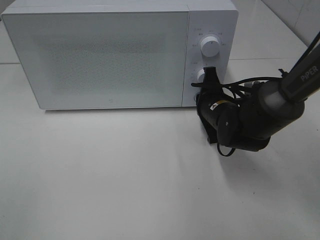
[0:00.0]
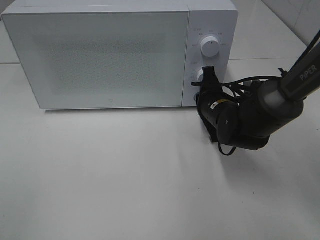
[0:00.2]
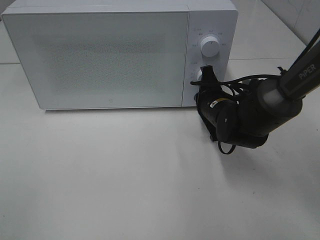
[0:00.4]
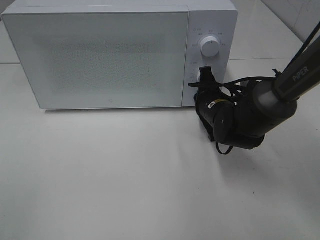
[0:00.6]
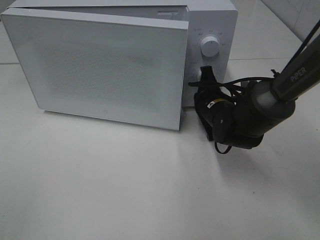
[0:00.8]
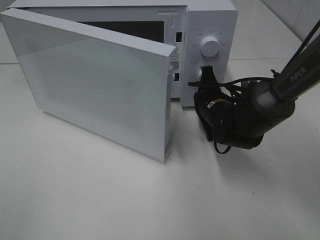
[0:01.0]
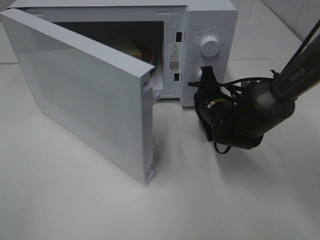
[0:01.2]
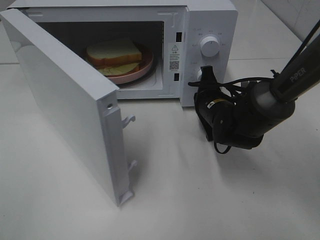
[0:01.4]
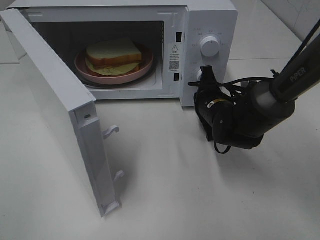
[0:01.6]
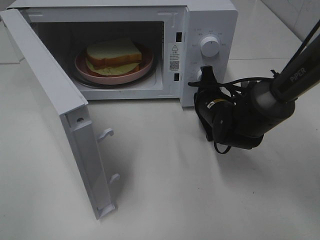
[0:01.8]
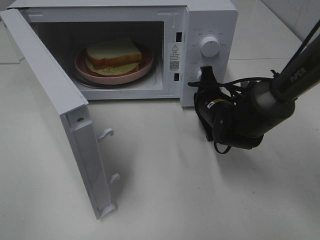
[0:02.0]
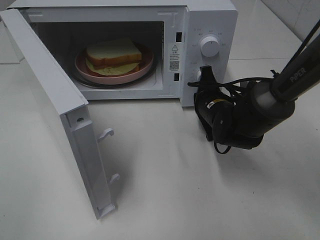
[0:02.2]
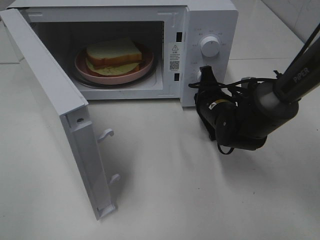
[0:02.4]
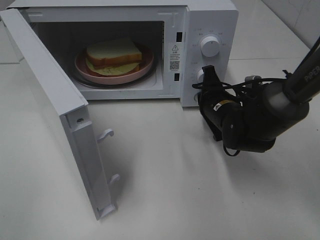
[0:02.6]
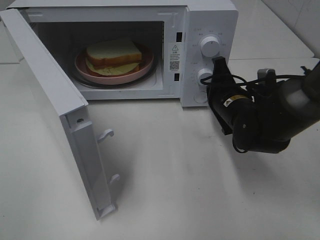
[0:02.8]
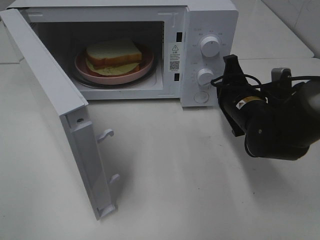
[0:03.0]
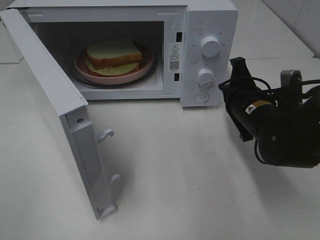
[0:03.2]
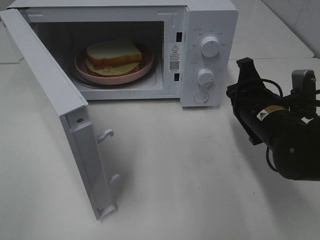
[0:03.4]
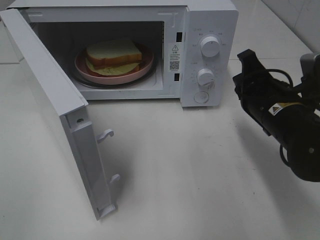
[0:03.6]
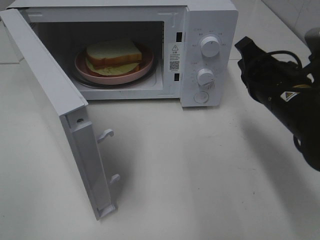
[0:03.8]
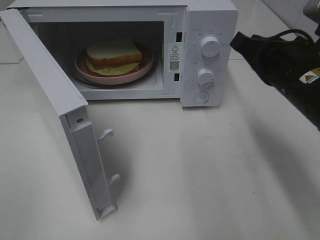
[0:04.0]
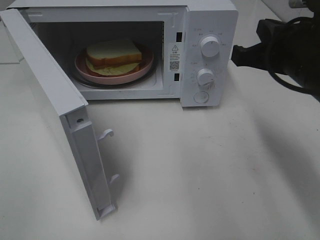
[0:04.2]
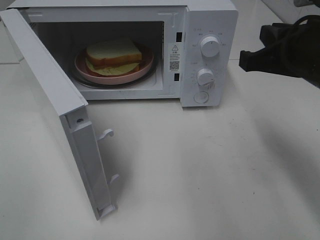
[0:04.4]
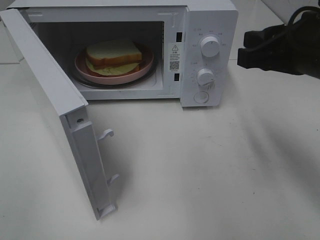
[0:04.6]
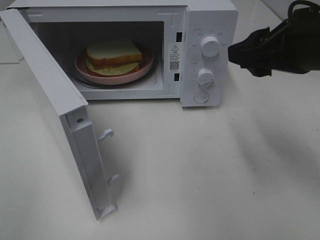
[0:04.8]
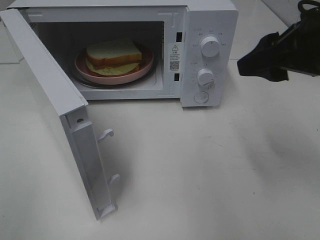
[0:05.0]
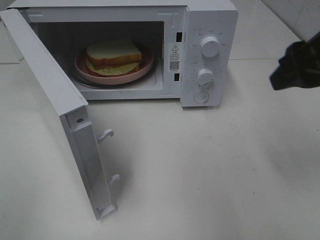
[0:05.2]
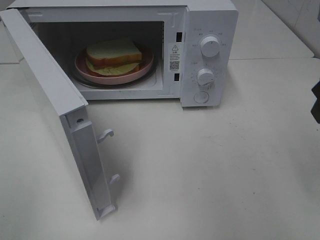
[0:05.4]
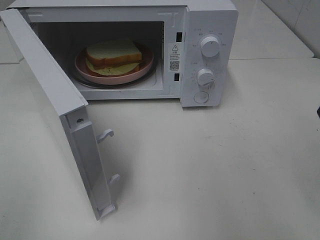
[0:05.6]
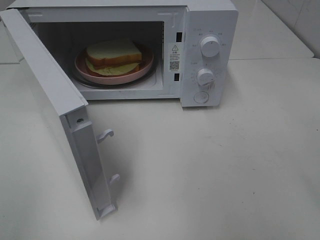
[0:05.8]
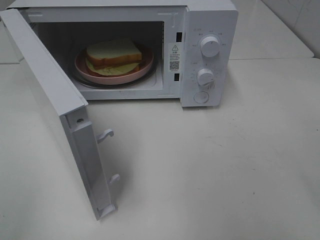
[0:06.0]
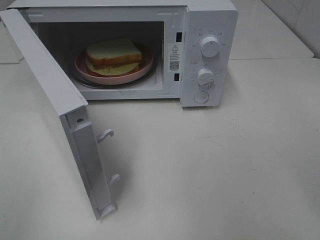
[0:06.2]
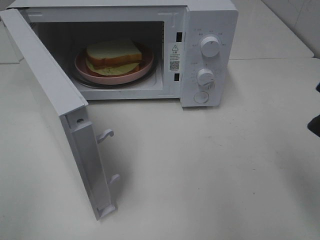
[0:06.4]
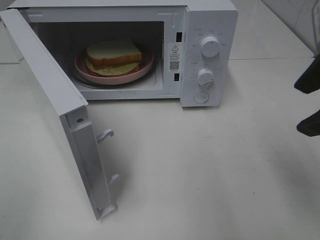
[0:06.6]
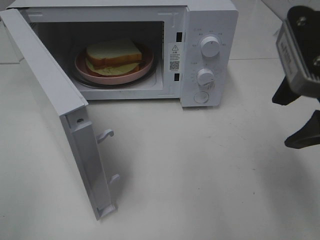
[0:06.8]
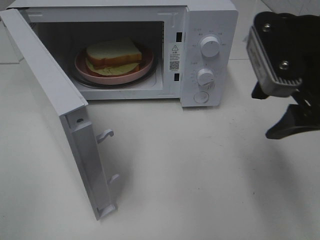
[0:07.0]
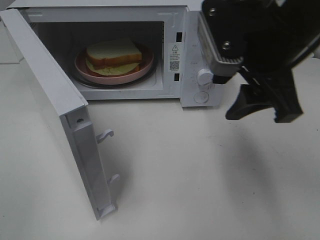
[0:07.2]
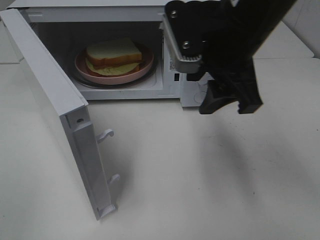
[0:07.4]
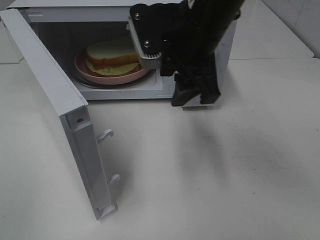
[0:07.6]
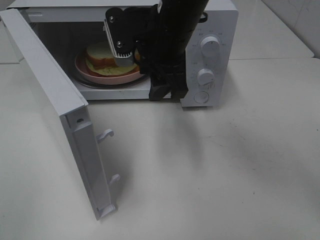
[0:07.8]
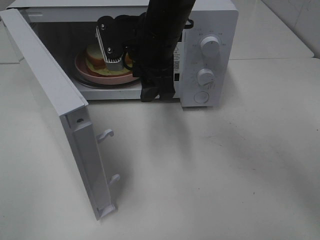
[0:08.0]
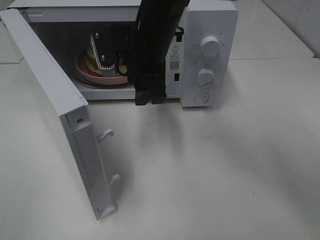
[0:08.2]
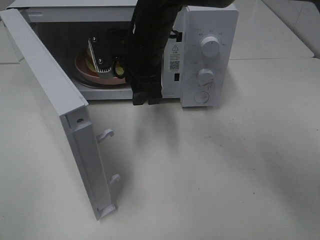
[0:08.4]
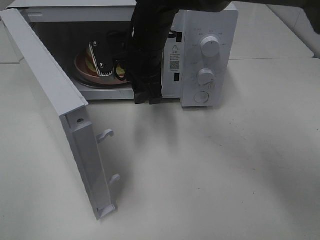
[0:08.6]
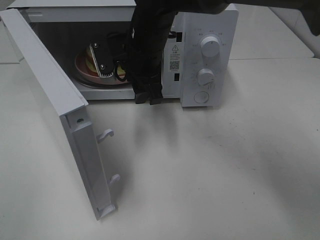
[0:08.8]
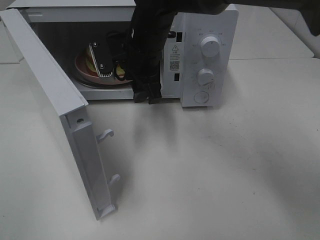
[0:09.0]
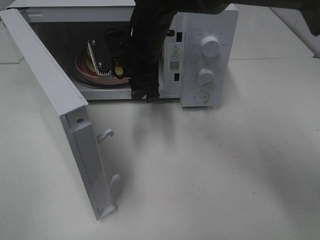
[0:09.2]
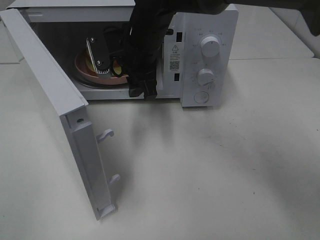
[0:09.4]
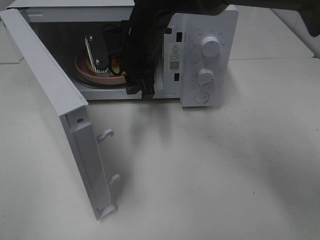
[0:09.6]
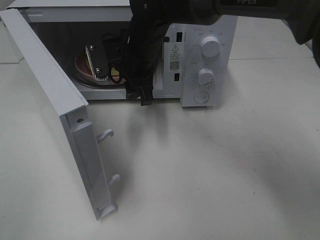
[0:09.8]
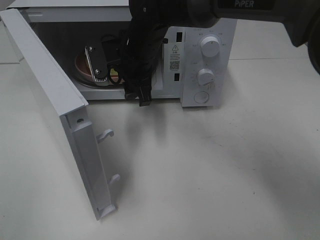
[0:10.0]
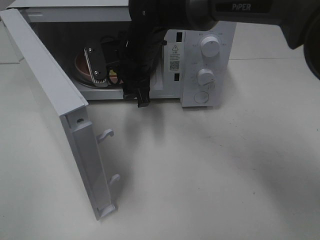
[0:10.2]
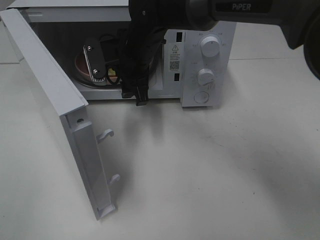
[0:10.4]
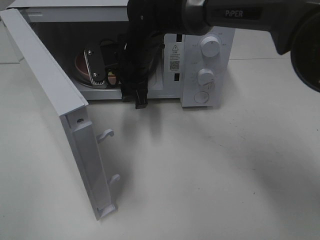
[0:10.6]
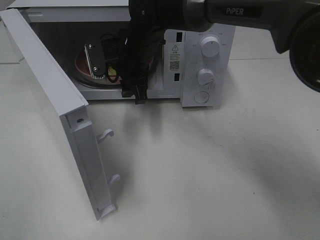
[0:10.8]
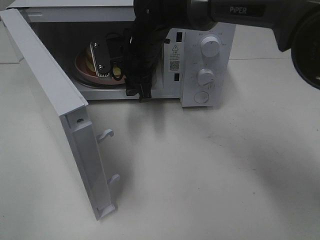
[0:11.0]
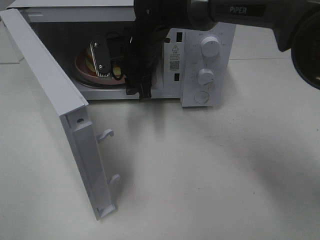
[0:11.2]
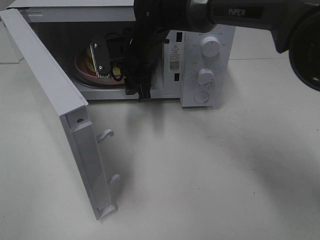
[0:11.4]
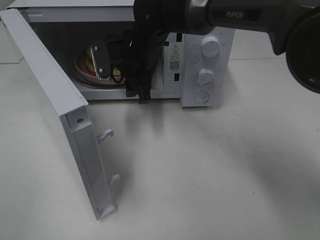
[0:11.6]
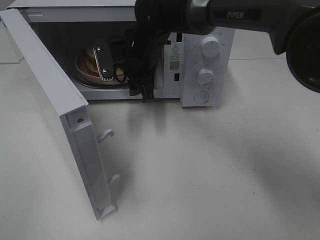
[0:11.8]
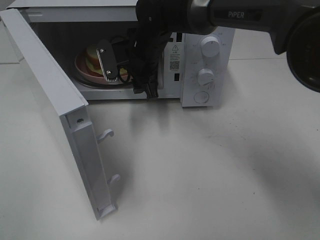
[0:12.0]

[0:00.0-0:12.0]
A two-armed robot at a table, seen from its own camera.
Task of the whole recording: Heat Sandwich.
Step, 0:00.0 to 0:02.6: Right hand: press the switch.
0:01.6 to 0:03.0: The right gripper ends up about 5 cm from where it was.
0:03.0 to 0:04.4: The right gripper travels upward and backward by about 15 cm.
0:04.4 to 0:06.0: The right gripper is displaced upward and backward by roughly 10 cm, and opens its fingers.
0:06.0 to 0:07.6: The right gripper travels to the left and forward by approximately 25 cm.
0:07.6 to 0:09.0: The right gripper shifts some 10 cm forward, downward and to the left.
0:09.0 to 0:12.0: The grippers make only small movements.

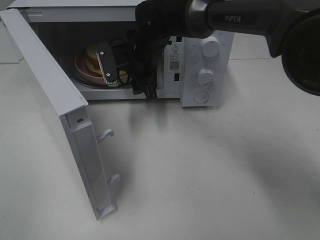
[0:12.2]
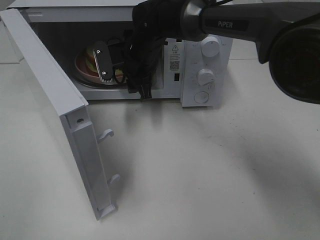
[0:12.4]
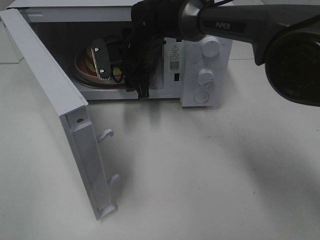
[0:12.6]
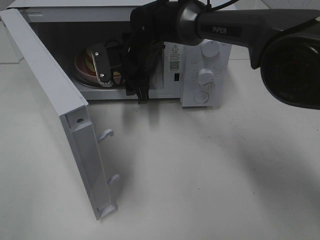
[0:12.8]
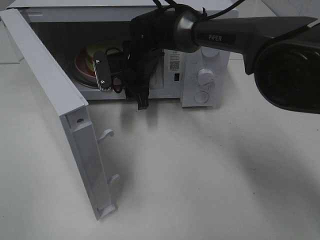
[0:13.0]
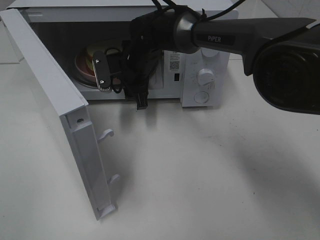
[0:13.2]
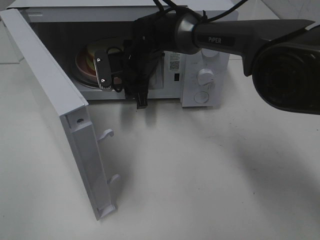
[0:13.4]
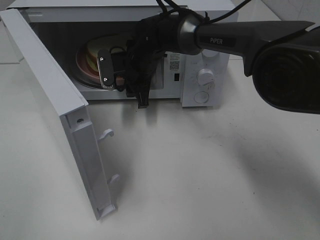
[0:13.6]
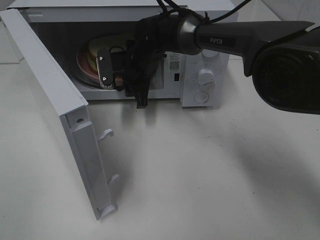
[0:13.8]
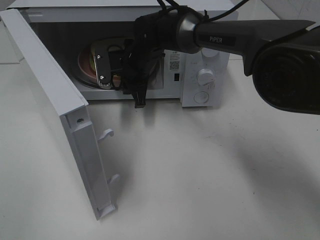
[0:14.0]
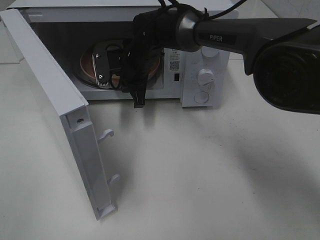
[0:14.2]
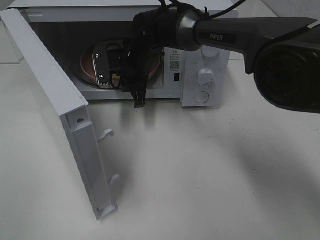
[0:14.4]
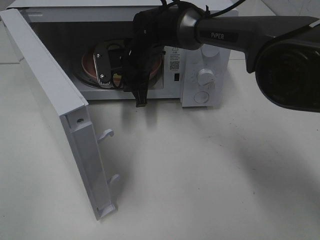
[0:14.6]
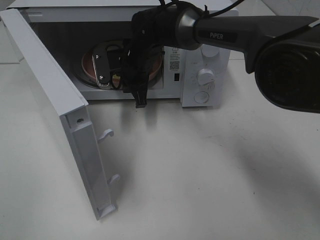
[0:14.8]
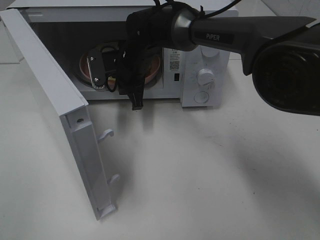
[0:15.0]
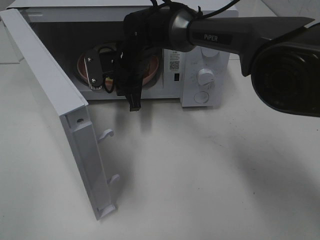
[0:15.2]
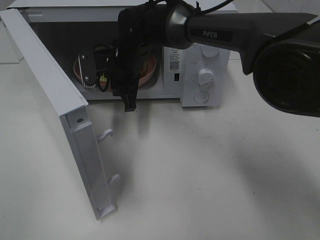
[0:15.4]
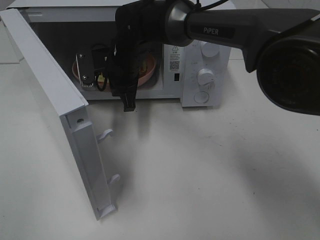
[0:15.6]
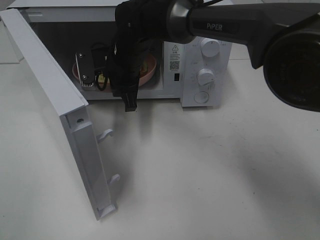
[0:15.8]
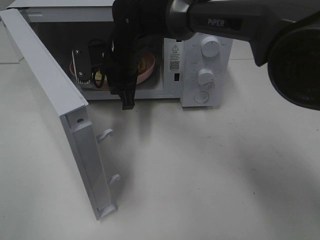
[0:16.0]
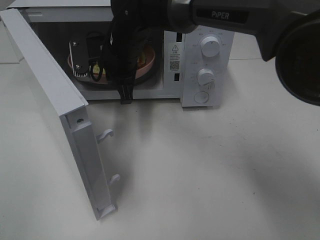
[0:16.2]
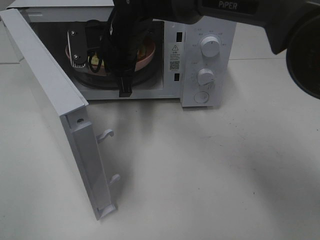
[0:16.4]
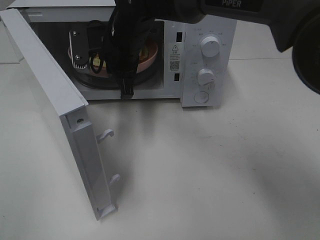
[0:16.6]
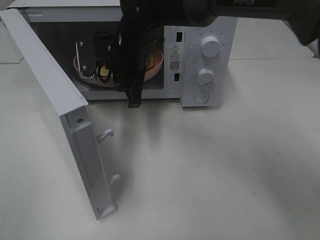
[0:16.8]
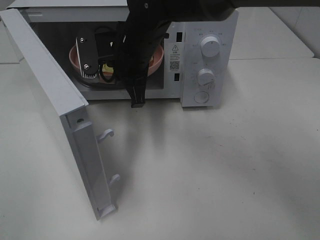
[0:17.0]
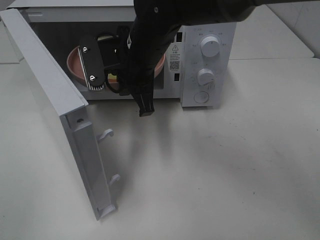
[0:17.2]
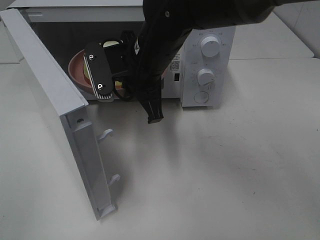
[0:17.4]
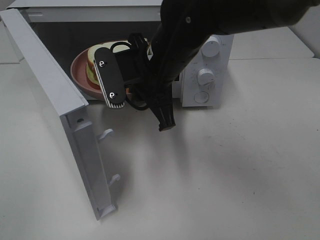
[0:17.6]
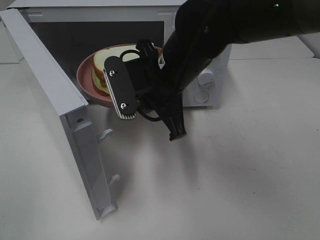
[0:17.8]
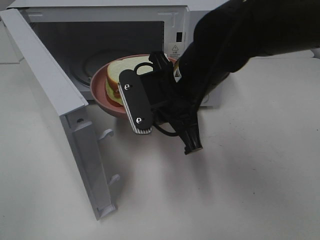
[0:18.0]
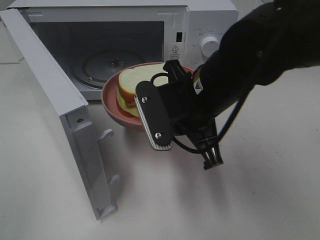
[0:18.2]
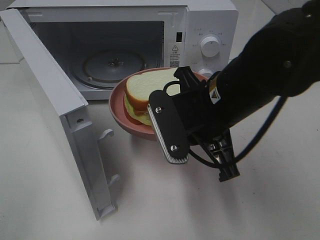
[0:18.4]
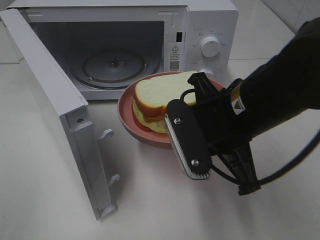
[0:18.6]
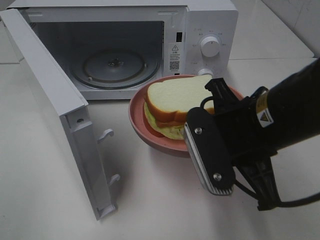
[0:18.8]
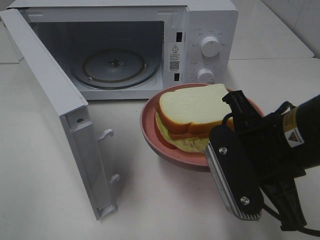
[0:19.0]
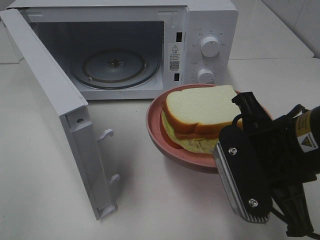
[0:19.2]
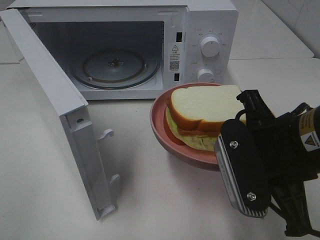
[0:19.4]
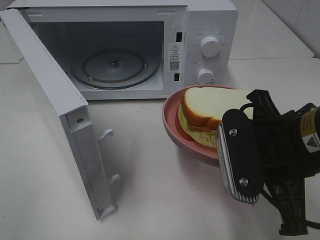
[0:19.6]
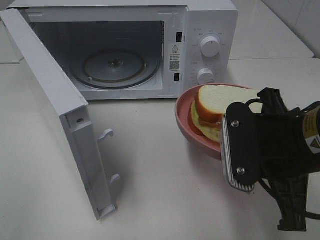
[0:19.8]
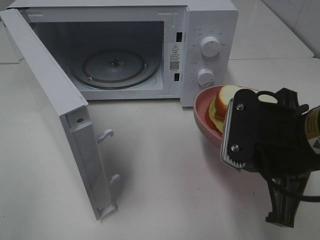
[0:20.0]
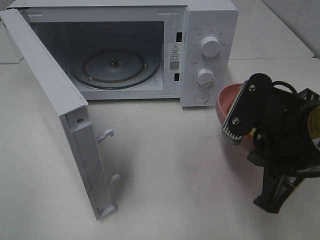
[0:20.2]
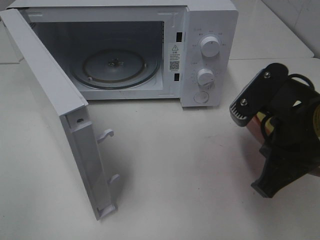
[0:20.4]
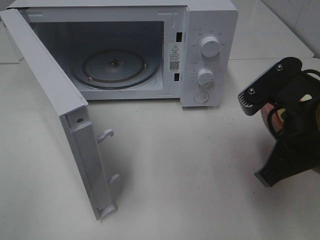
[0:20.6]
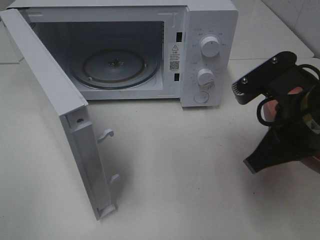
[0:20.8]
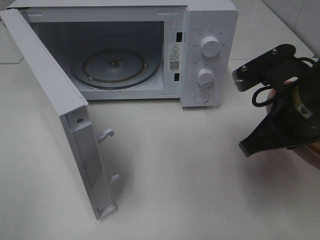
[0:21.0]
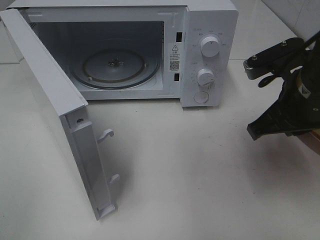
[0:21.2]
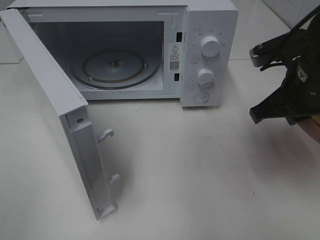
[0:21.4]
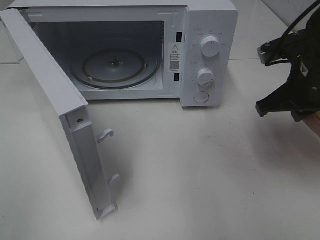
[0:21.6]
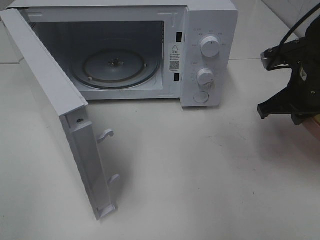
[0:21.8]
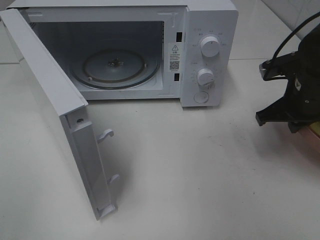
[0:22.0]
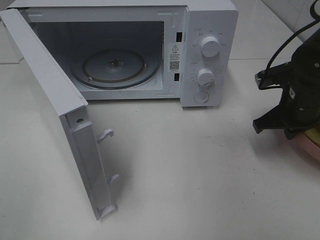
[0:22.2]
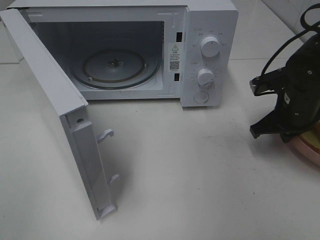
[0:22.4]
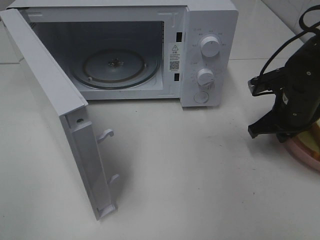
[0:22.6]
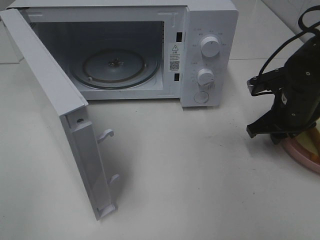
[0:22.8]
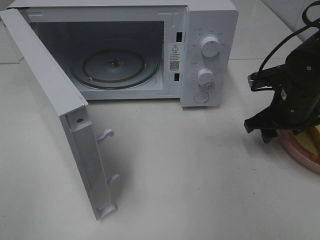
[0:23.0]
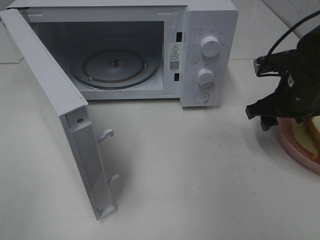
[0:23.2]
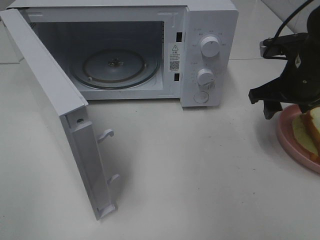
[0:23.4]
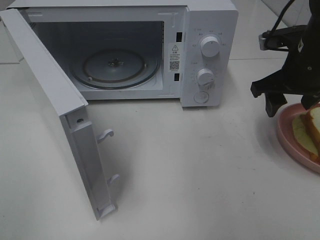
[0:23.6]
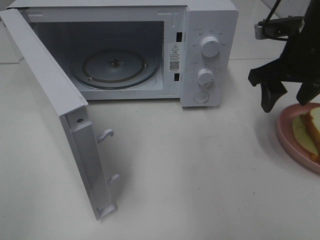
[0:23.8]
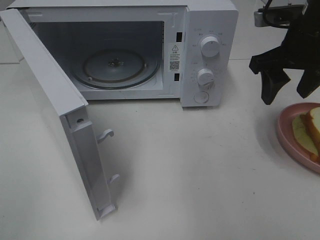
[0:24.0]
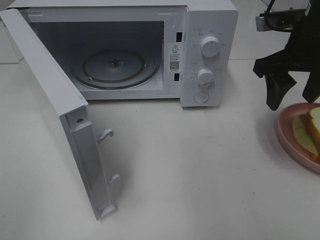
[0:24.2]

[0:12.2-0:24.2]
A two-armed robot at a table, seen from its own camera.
Task of the whole recording: Heat Sandwich.
Step, 0:12.2 to 0:14.2: Right hand: grab the plate with the sandwich.
Step, 0:14.4 to 0:23.6: Right hand: place the plate on the table.
0:12.2 to 0:13.8: The grippers move only a little.
0:13.8 to 0:15.2: The right gripper closes its fingers.
0:15.2 to 0:16.6: The right gripper shifts roughly 5 cm upward.
0:16.6 to 0:18.2: The right gripper is displaced backward and to the right by about 20 cm.
0:18.2 to 0:19.8: The right gripper travels to the right and backward by about 10 cm.
0:19.8 to 0:21.2: The right gripper heads forward, covering roughly 10 cm.
0:21.2 to 0:22.6: The right gripper heads downward, forward and to the right, covering about 15 cm.
0:22.6 to 0:24.2: The right gripper travels upward by about 15 cm, and opens its fingers.
